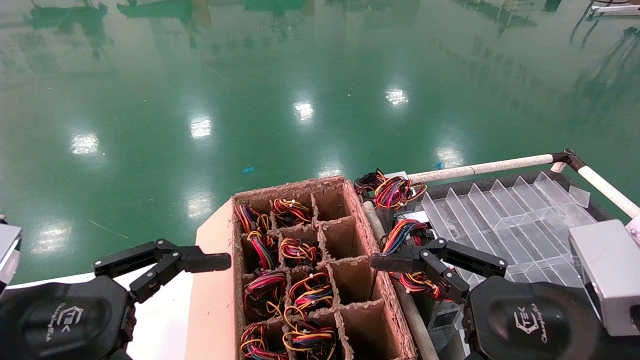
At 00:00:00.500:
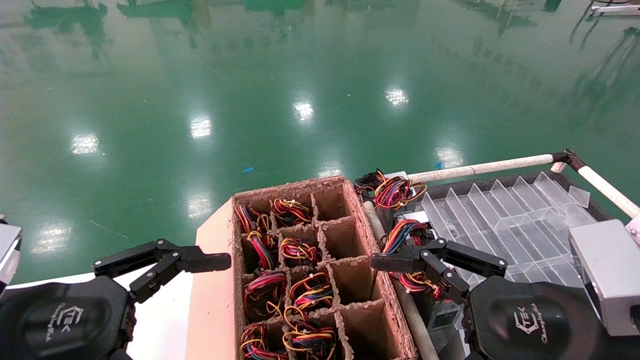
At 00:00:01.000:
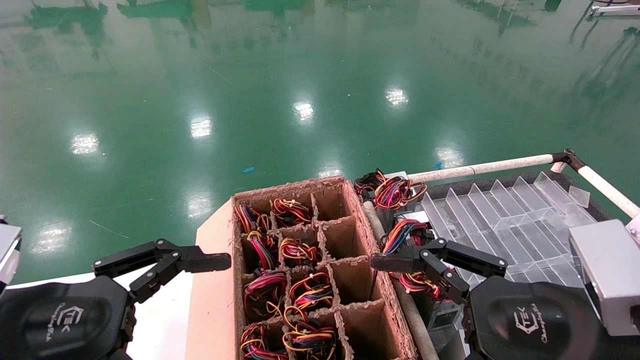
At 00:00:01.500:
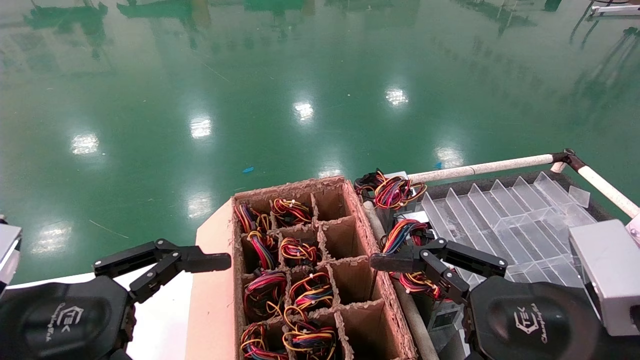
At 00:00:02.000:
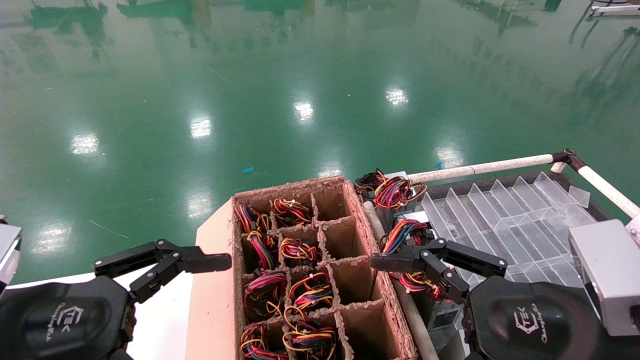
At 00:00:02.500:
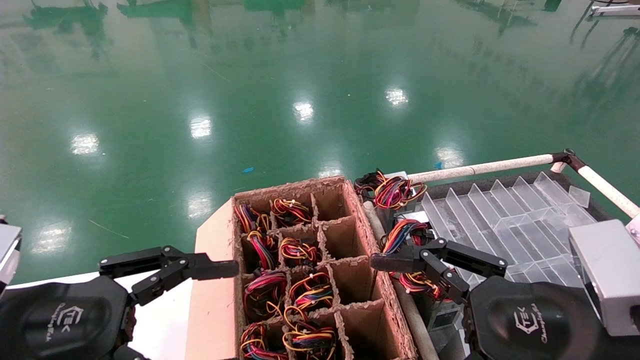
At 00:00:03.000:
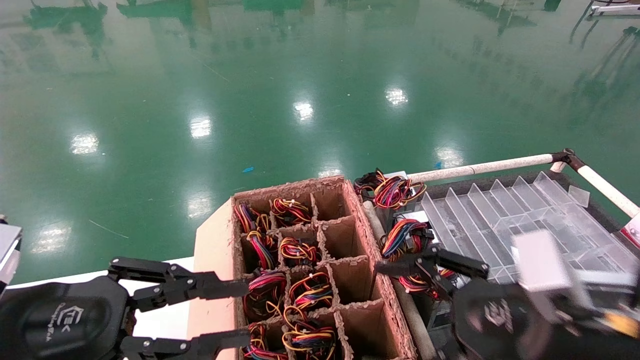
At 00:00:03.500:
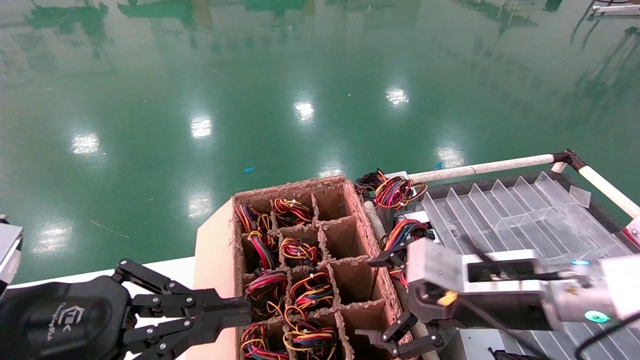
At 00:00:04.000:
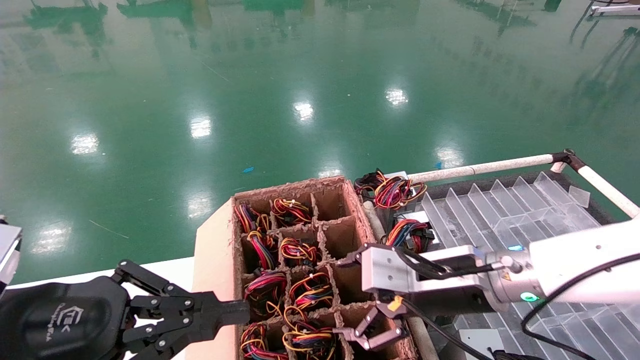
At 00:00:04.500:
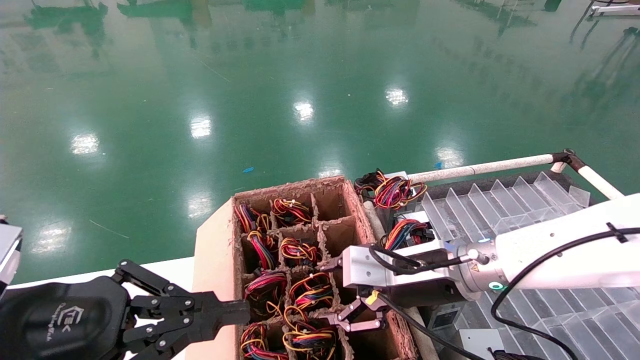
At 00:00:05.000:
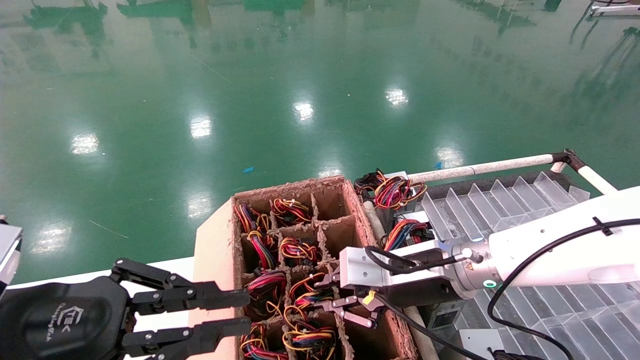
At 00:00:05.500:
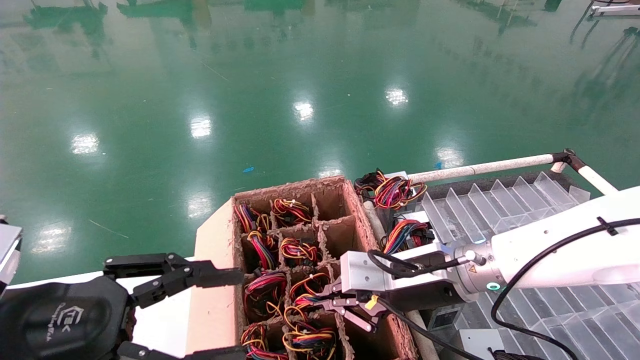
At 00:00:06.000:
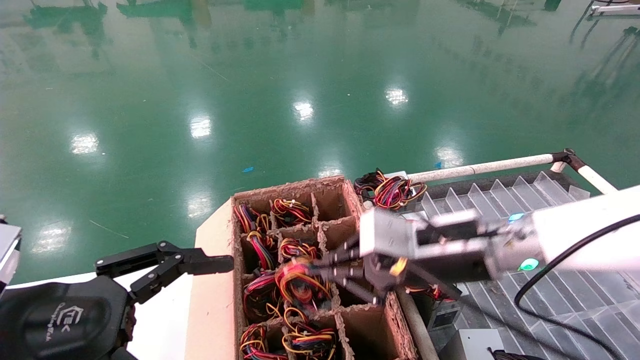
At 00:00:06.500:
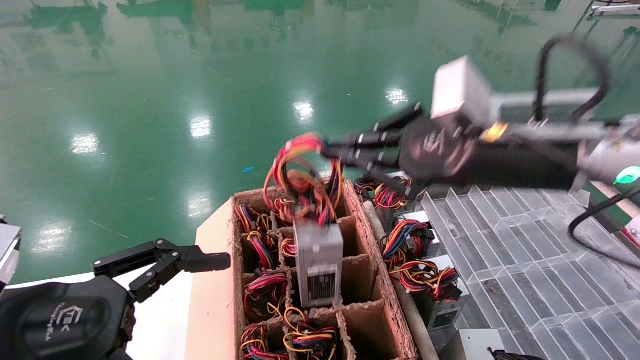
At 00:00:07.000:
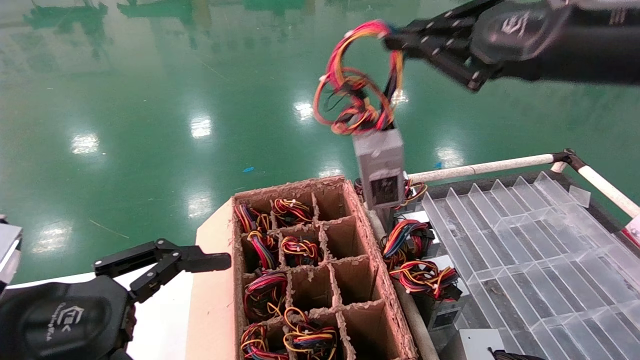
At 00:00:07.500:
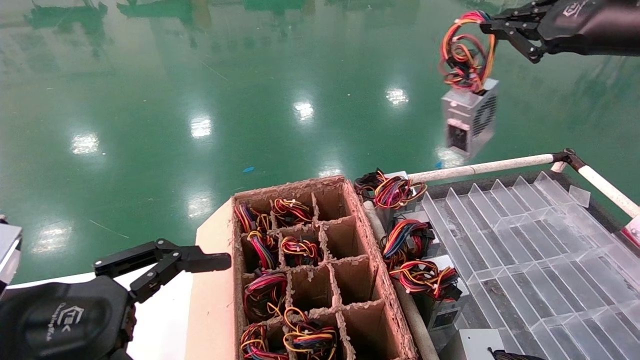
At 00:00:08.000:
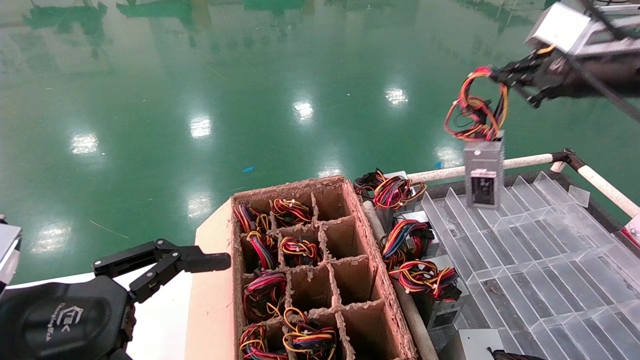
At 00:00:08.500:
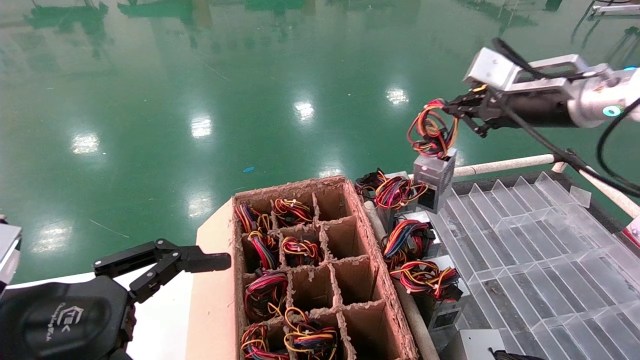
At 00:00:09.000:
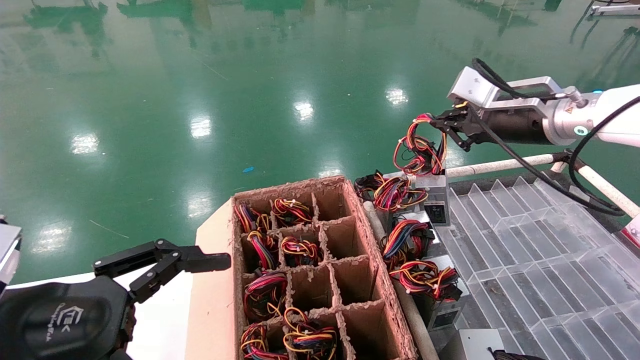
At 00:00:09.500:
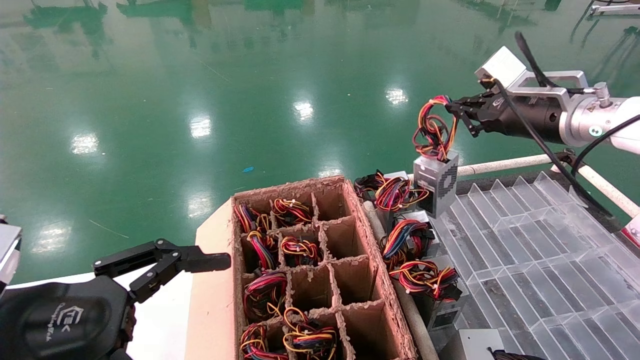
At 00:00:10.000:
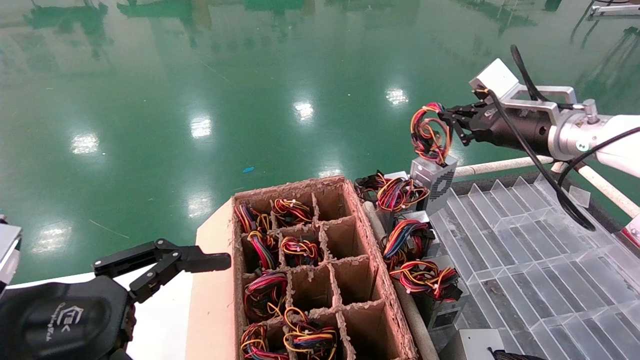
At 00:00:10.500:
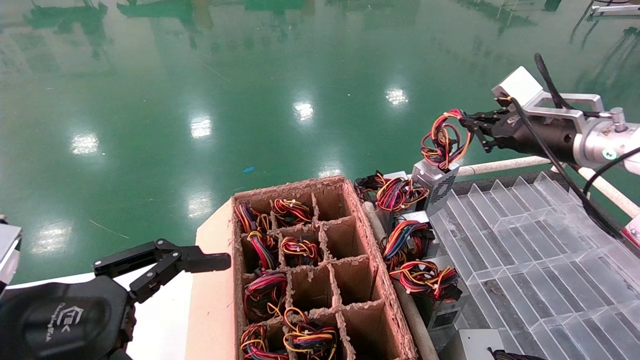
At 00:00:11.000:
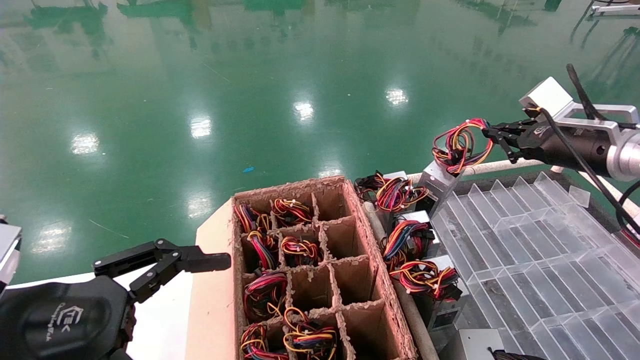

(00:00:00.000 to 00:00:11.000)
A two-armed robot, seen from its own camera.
Step, 00:00:03.000 - 00:00:05.000: Grab and lift the power supply from the large box.
00:00:00.000 - 00:00:02.000: Neither gripper changes place.
00:00:02.000 - 00:00:03.500: The left gripper closes. The right gripper goes approximately 10 cm forward.
00:00:03.500 - 00:00:05.500: The right gripper heads to the left and forward, covering about 10 cm, and closes up.
00:00:05.500 - 00:00:07.500: The right gripper is displaced upward and to the right by roughly 35 cm. The left gripper opens its fingers.
00:00:07.500 - 00:00:09.000: The right gripper goes some 10 cm downward and forward.
00:00:09.000 - 00:00:11.000: The right gripper shifts about 10 cm to the right and downward.

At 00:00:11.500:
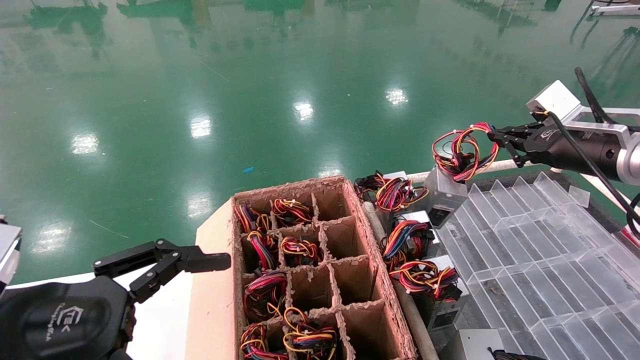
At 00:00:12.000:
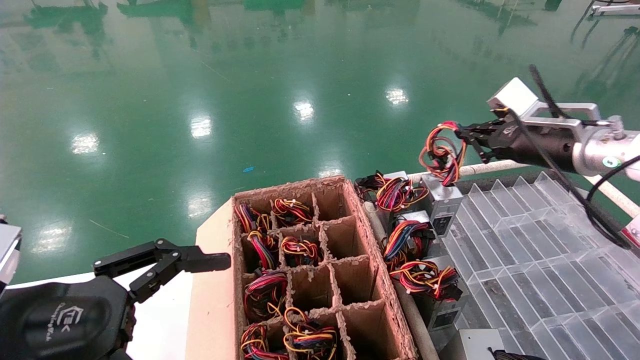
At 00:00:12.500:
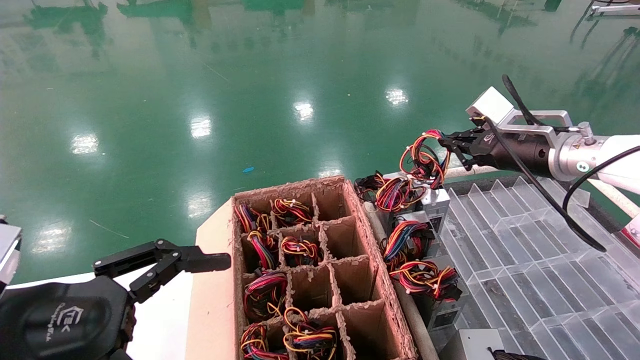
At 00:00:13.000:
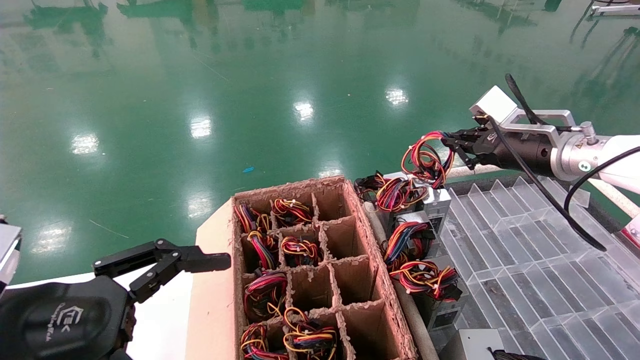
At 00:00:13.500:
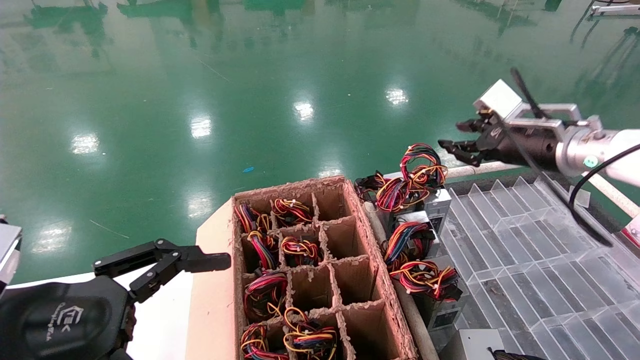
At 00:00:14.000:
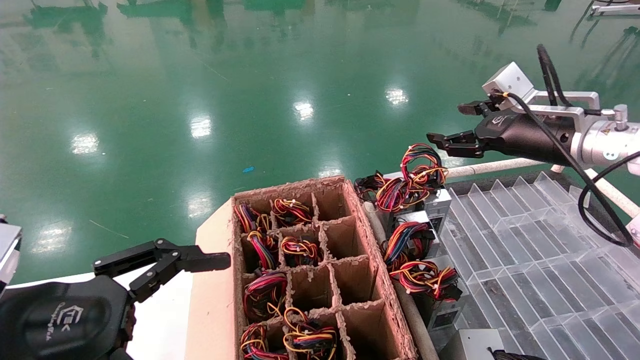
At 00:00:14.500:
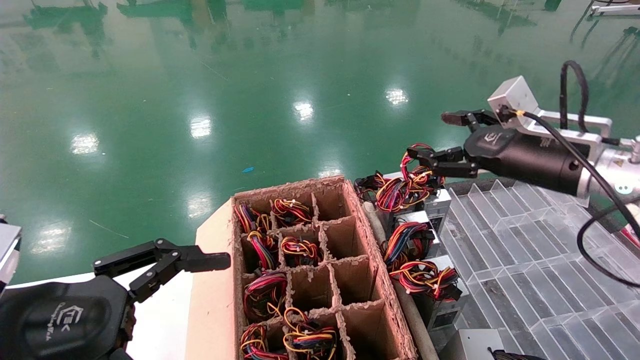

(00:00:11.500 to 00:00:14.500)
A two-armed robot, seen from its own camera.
00:00:11.500 - 00:00:13.000: The right gripper is displaced to the left by approximately 5 cm.
00:00:13.000 - 00:00:14.500: The right gripper is displaced backward by approximately 5 cm, and opens its fingers.
